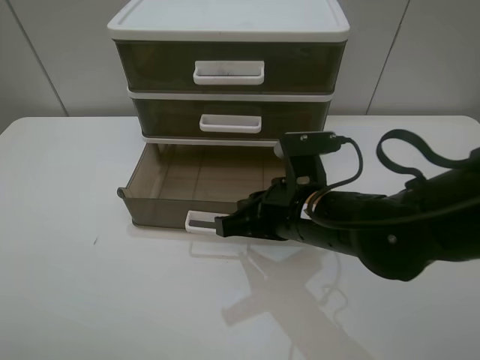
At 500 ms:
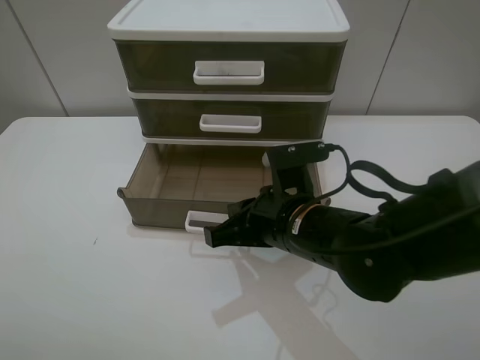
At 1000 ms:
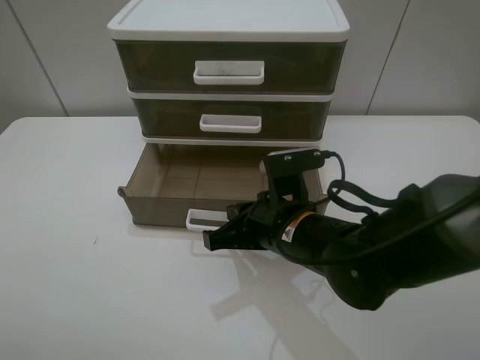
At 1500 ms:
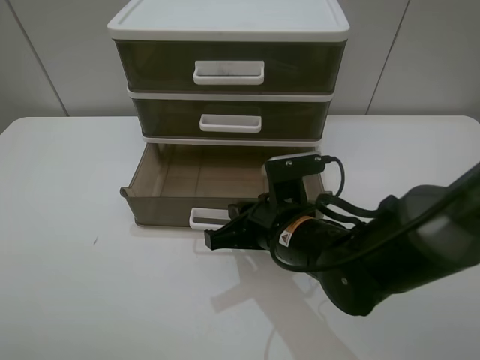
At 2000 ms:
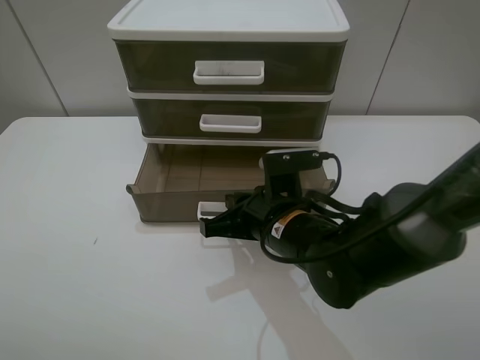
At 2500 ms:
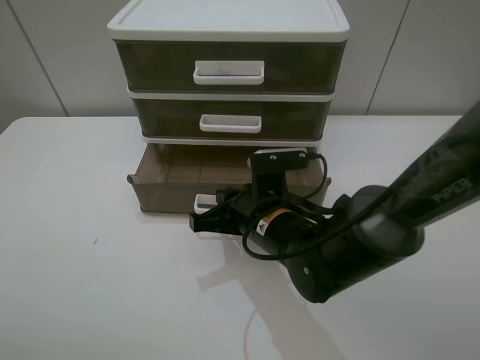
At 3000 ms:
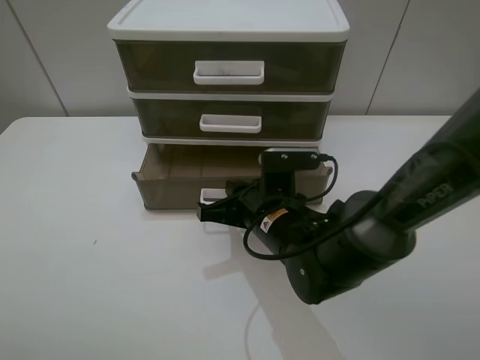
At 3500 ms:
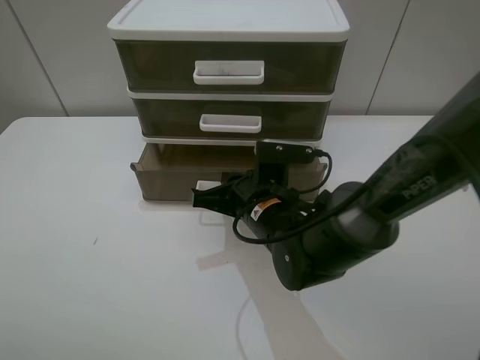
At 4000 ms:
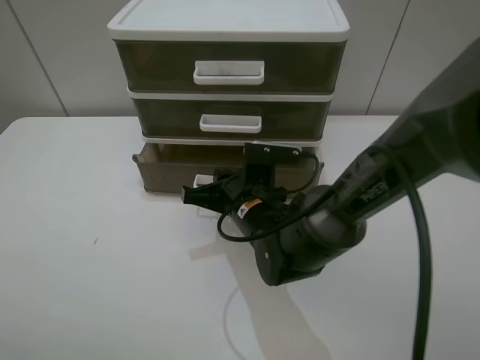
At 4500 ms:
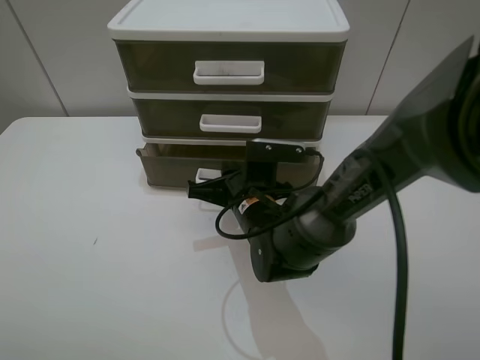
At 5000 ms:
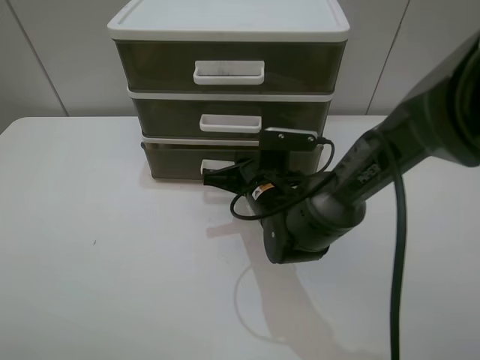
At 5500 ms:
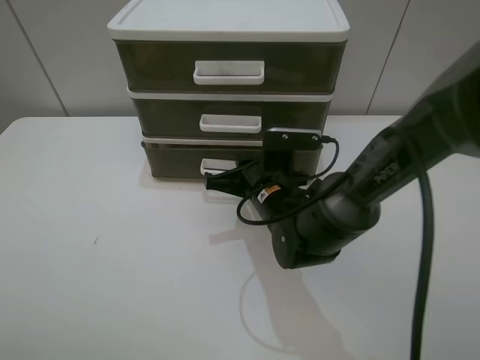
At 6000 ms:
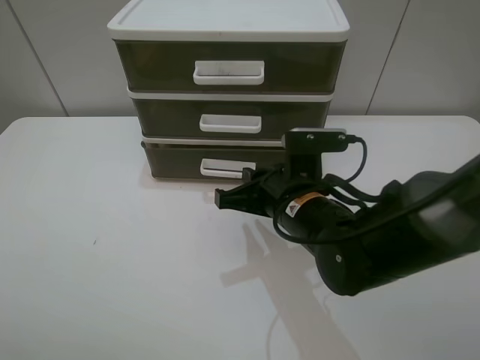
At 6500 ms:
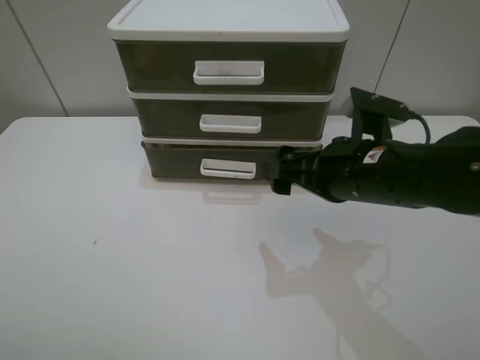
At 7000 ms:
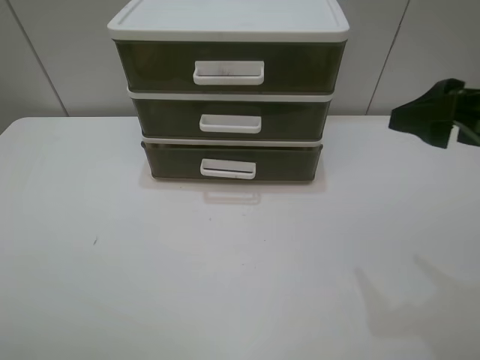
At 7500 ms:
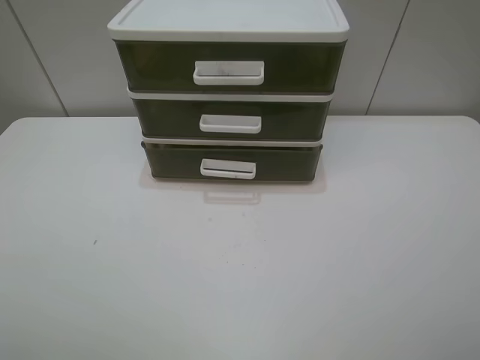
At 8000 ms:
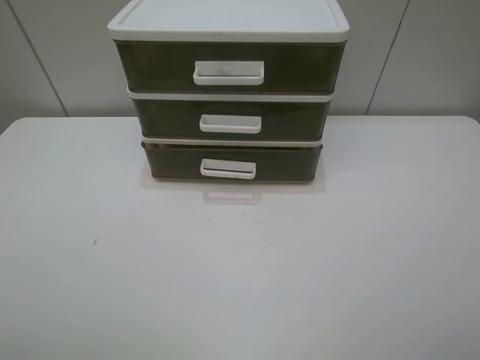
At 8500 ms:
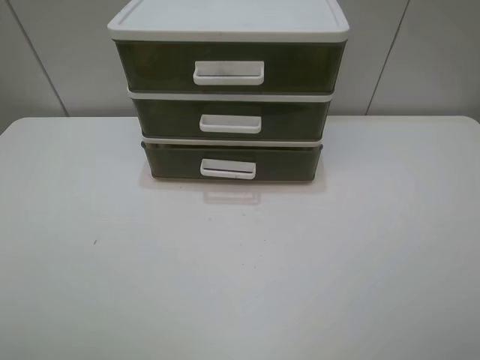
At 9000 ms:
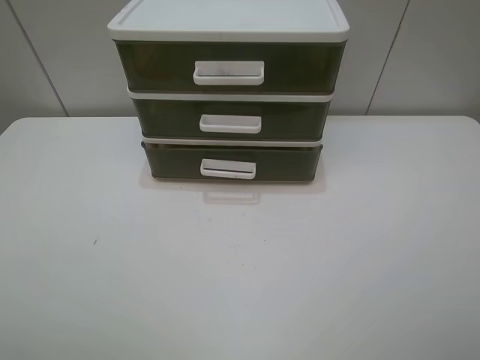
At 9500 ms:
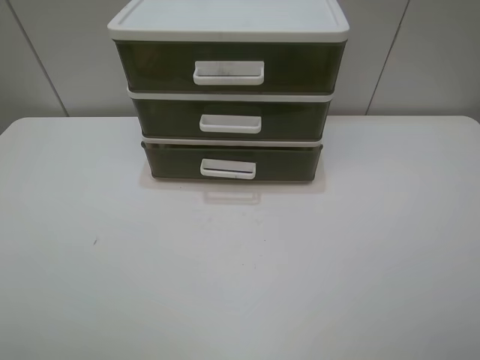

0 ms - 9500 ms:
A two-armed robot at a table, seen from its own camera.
Task of the whole recording: close the bottom drawer.
Step, 1500 ms - 5000 ms: Push the bottom drawer closed.
0 ms - 2000 ms: The right gripper changes place by some 5 cm.
2000 ms - 4000 ms: The right gripper changes place by about 5 cm.
4000 ms - 5500 ms: The grippers stay close to where they were, moving slightly.
5500 ms - 7500 ms: The right gripper is displaced upward, to the right and backward by roughly 40 cm, and opens.
